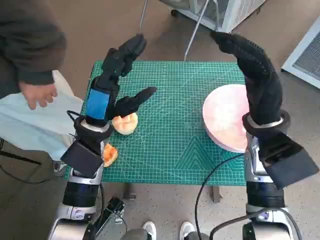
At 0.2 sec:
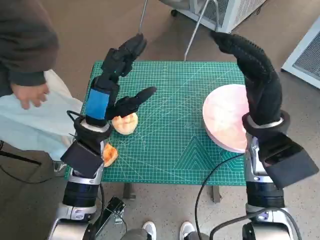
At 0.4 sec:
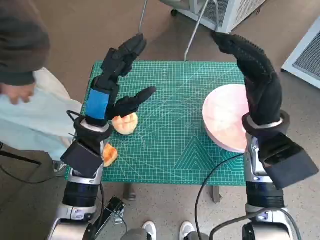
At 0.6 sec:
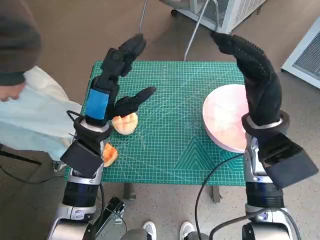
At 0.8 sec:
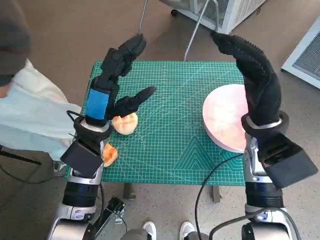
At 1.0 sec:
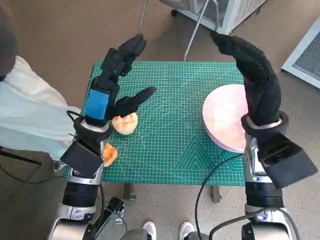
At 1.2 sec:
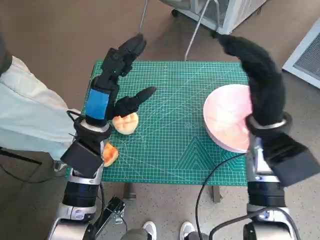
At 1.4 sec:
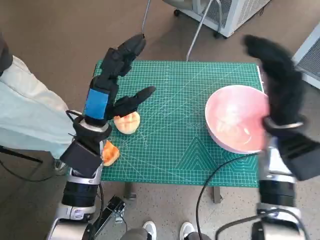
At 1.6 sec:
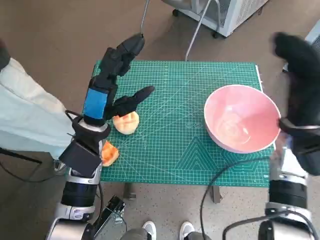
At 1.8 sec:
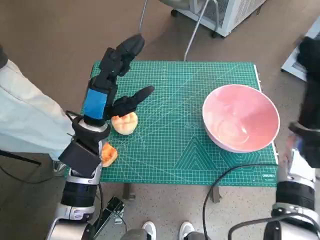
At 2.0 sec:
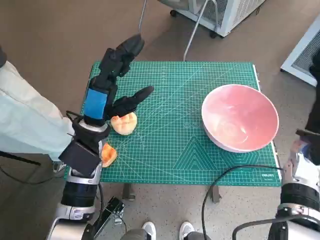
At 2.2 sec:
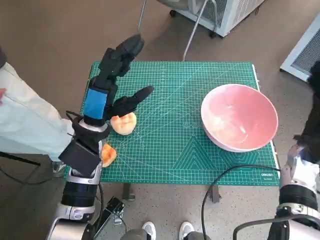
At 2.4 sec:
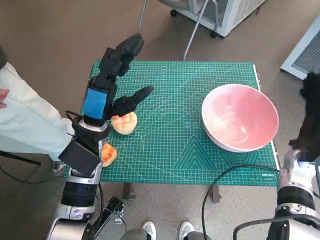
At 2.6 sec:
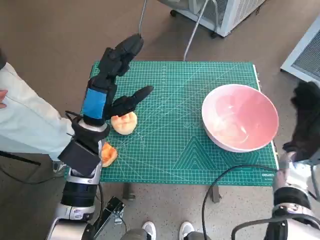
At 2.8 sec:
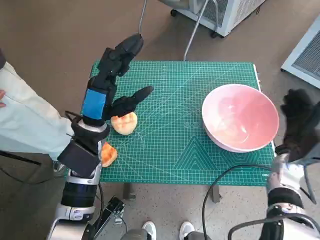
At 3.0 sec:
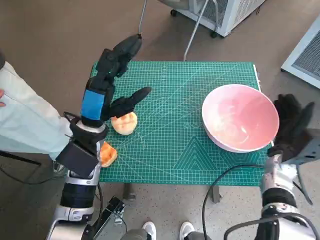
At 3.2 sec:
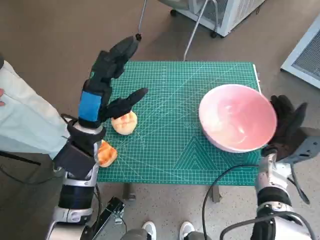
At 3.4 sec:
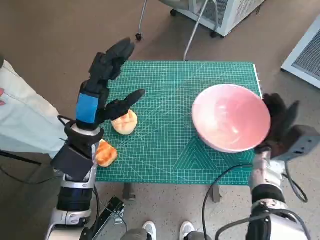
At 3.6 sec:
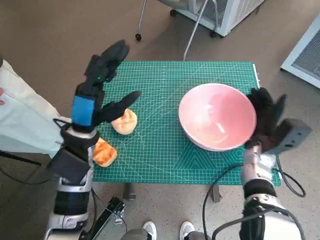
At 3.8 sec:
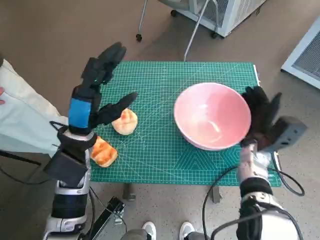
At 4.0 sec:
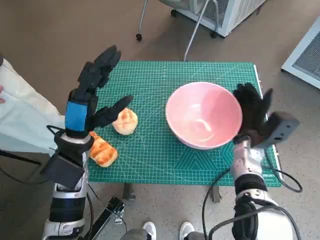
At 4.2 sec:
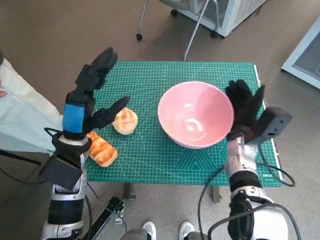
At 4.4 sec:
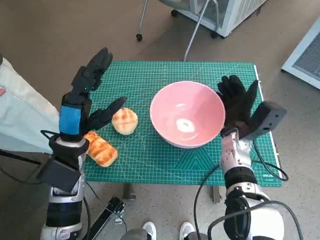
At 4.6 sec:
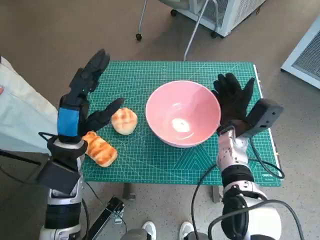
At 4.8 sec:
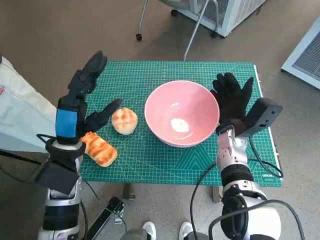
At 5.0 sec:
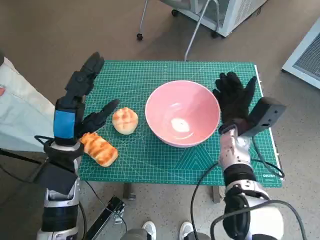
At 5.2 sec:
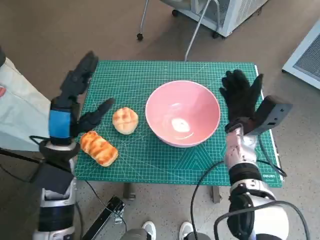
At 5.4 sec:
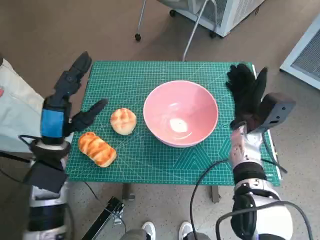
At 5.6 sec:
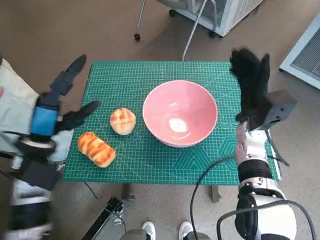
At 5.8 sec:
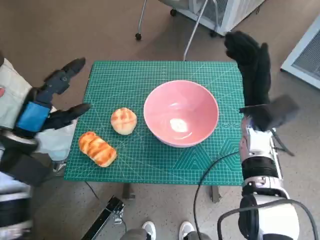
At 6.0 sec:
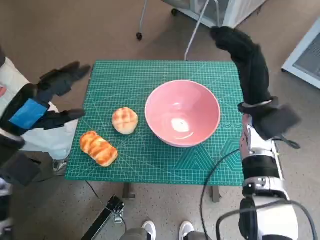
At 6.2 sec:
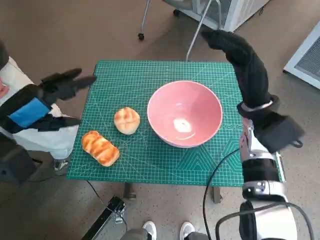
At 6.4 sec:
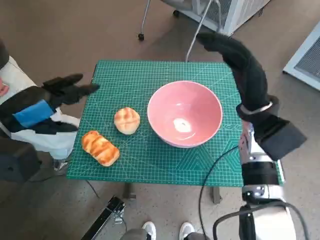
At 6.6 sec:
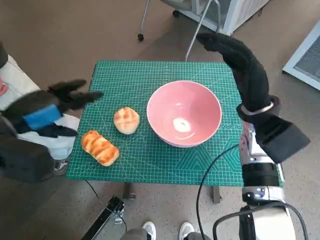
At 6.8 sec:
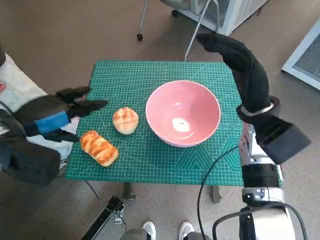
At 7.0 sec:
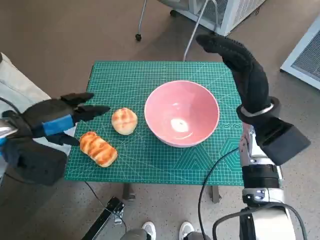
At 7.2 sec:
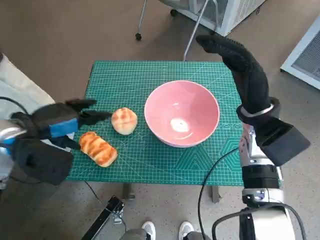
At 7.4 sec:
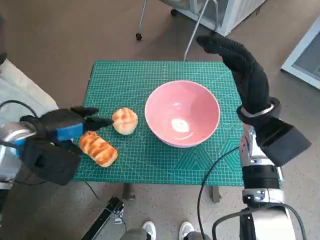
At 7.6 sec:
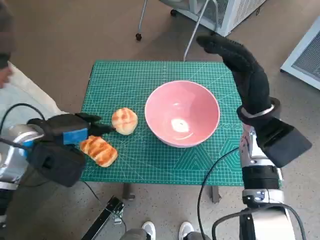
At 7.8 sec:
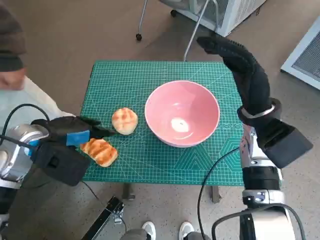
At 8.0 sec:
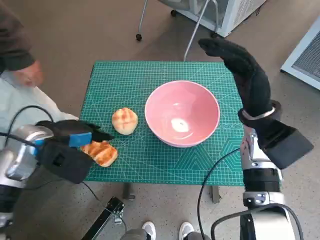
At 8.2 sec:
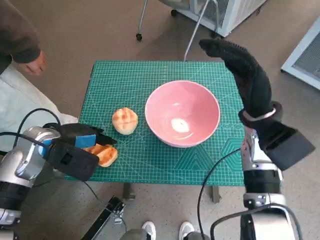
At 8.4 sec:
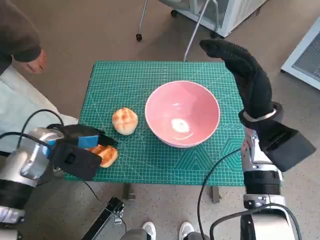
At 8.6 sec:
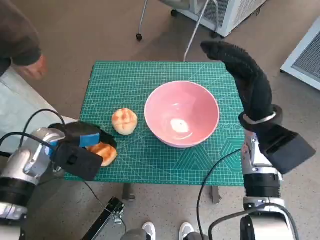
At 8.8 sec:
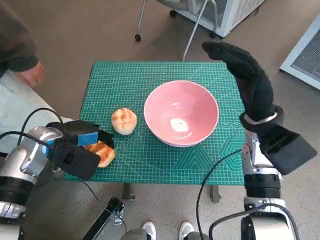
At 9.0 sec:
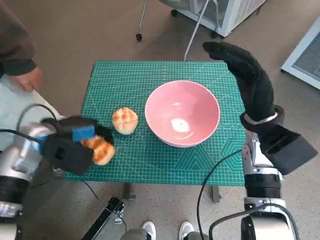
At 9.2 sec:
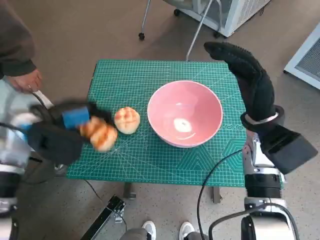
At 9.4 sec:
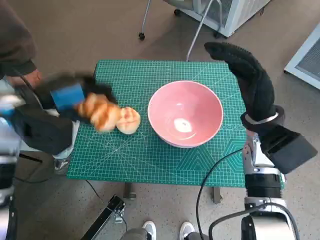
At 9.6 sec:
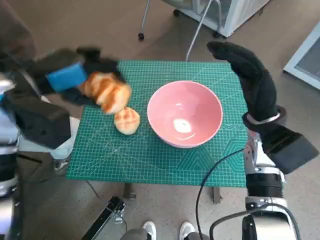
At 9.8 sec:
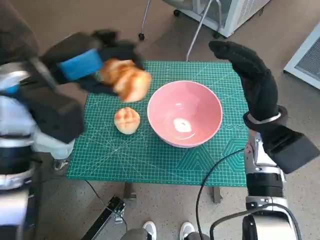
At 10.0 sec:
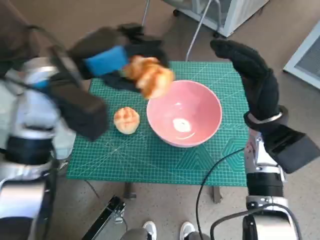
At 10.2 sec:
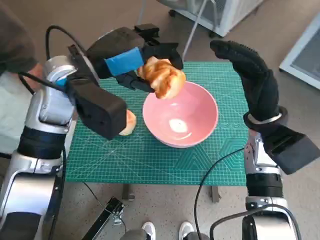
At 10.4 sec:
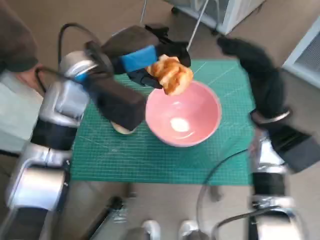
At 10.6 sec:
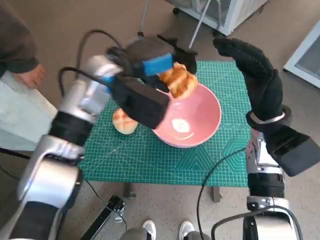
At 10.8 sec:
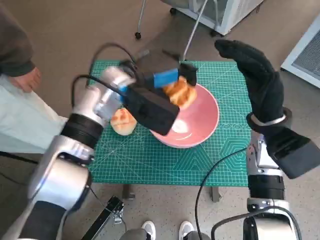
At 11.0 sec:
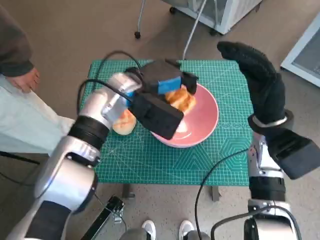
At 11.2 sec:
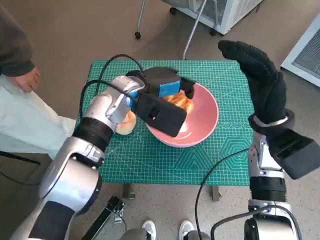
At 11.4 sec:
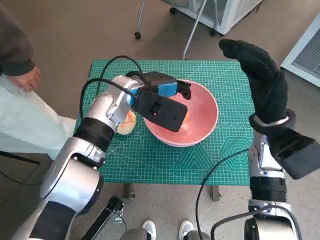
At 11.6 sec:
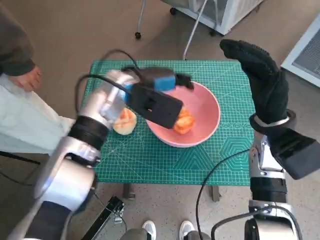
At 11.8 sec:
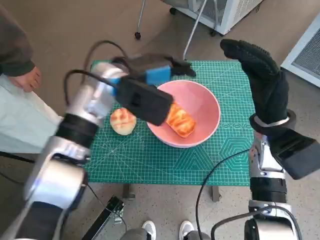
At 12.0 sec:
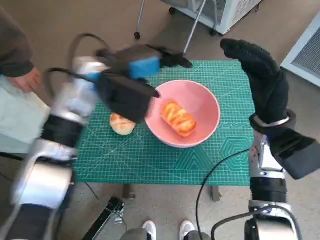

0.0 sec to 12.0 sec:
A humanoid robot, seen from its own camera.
Task of the whole recording: Push the bowl to the center of the table and put the bread into the bowl.
Step, 0.0 sec to 5.0 sec: Move the pink bowl to the center of table with right hand.
Step, 5.2 sec to 8.6 sec: Grasp the long bread with left hand.
Step, 8.8 sec to 11.6 sec: Place the long bread in pink bowl with left hand.
1.6 sec to 3.0 sec: The right hand heads downward, covering about 10 cm.
3.0 sec to 4.4 sec: The right hand shifts roughly 10 cm to the left.
4.4 sec to 6.0 sec: The left hand is displaced to the left by roughly 10 cm, while the right hand moves upward, some 10 cm.
7.6 sec to 9.0 sec: The hands move only a little.
9.0 sec to 10.4 sec: The left hand is displaced upward and to the right by roughly 15 cm.
10.4 sec to 12.0 sec: The left hand moves about 10 cm downward and comes back.

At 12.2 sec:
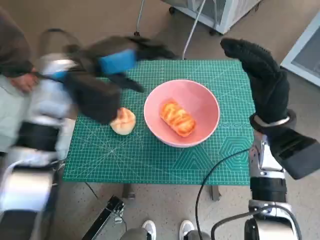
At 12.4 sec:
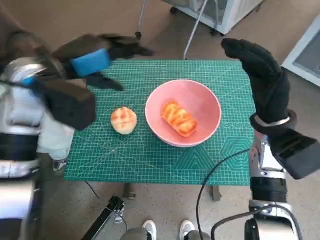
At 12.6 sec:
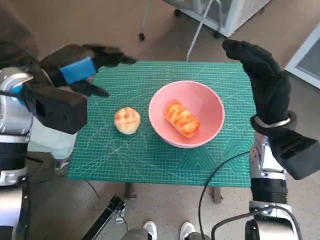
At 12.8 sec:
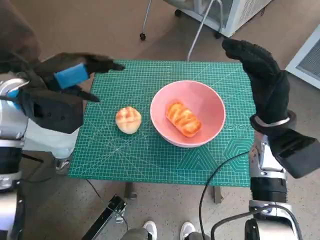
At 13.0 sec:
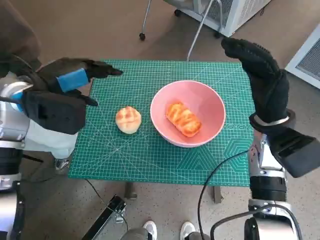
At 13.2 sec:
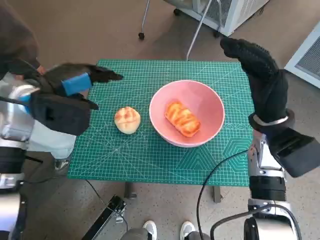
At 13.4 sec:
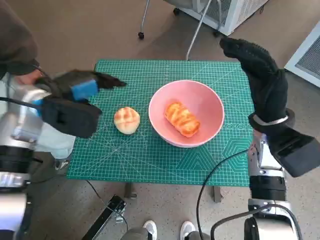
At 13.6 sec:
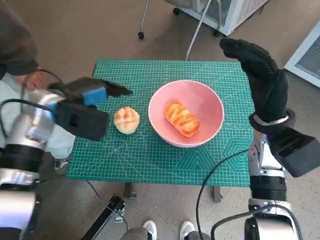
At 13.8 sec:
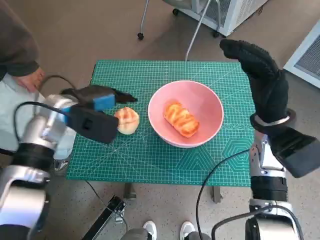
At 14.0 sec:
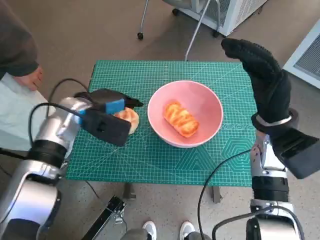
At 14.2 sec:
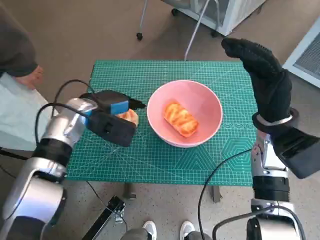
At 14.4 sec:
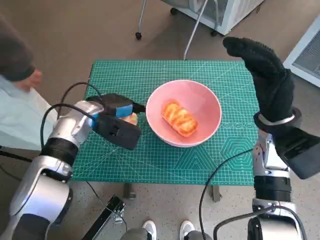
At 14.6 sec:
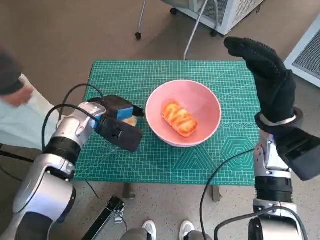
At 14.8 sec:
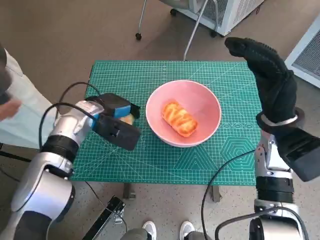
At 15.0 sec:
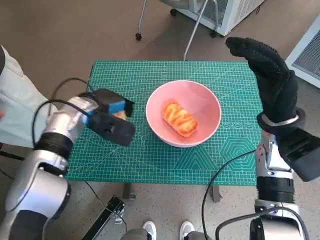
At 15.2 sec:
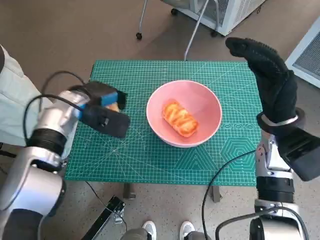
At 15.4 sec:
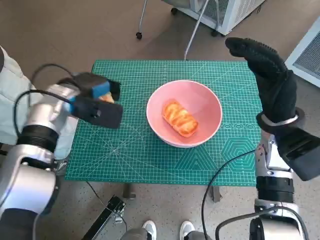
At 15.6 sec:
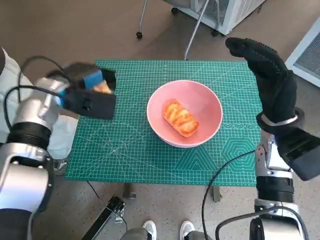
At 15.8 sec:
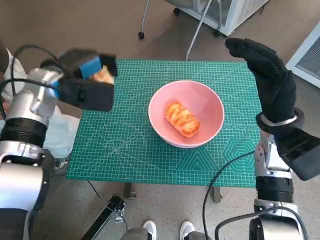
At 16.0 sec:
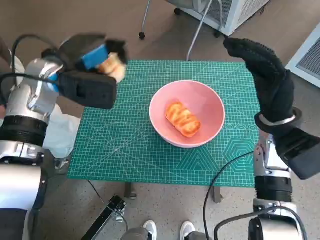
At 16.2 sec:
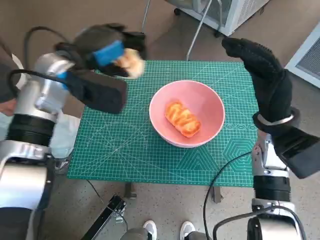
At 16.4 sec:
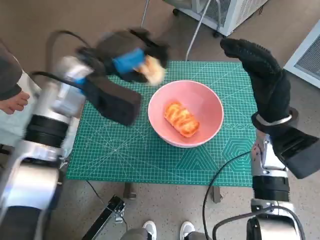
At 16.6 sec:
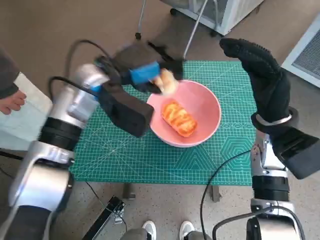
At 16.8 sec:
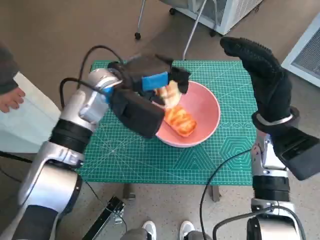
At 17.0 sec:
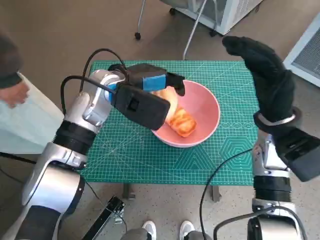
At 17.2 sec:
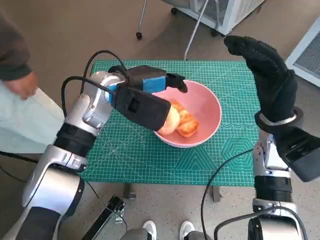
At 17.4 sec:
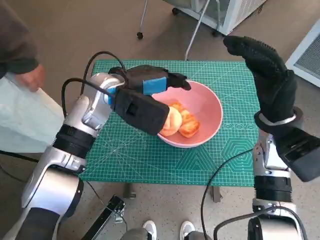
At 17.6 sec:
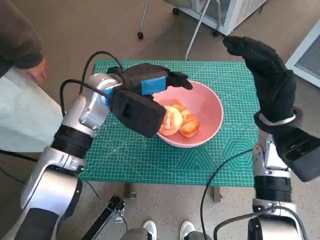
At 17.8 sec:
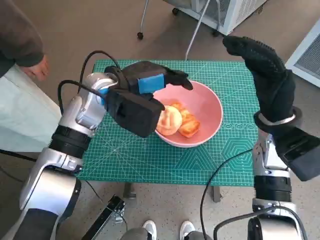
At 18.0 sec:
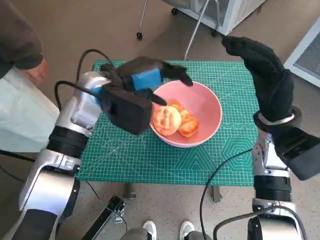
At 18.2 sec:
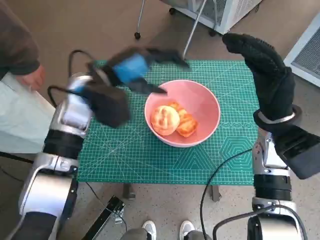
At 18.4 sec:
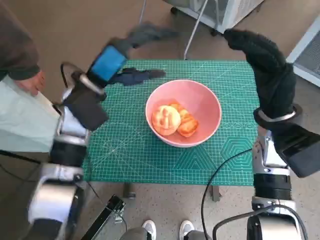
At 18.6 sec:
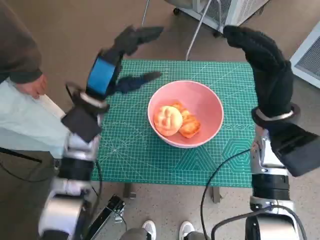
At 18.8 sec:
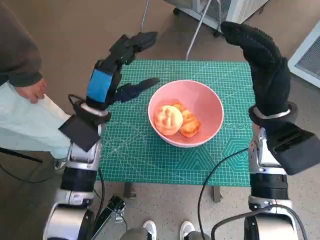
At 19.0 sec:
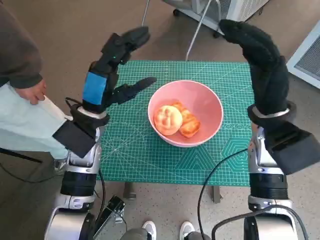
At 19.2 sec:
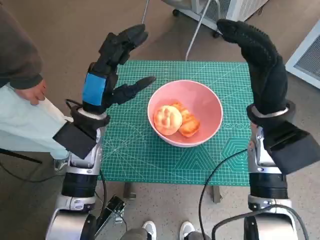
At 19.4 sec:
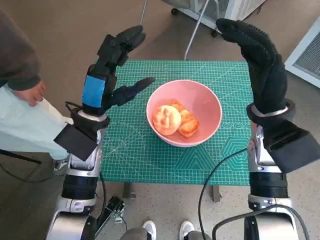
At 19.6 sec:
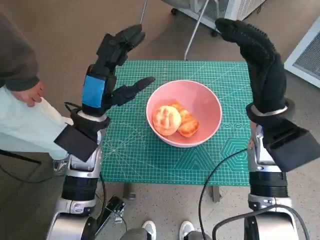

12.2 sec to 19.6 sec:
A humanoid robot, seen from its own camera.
Task of the whole recording: Push the bowl to the center of the table and put the bread into the bowl.
Step, 12.2 sec to 14.6 sec: Grasp the round bread with left hand.
Step, 14.8 sec to 17.4 sec: Place the round bread in pink bowl with left hand.
12.2 sec to 13.6 sec: The left hand moves downward and to the left, approximately 10 cm.
15.2 sec to 16.6 sec: The left hand is displaced upward and to the right by roughly 10 cm.
18.2 sec to 19.6 sec: The left hand shifts roughly 5 cm downward.
